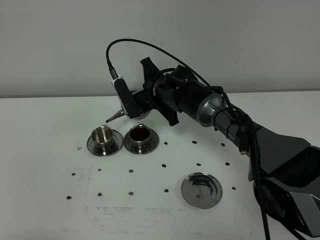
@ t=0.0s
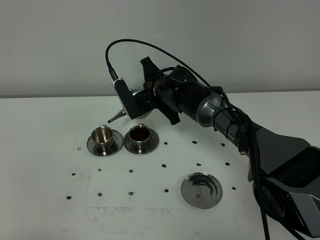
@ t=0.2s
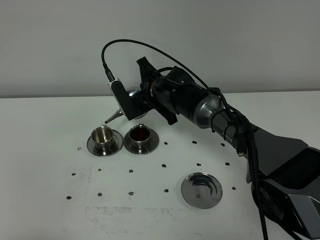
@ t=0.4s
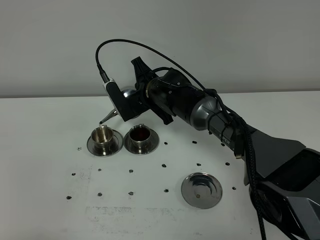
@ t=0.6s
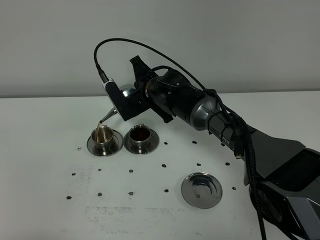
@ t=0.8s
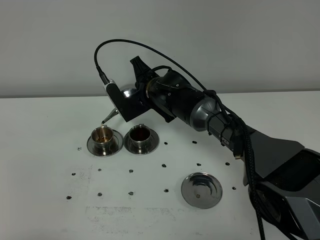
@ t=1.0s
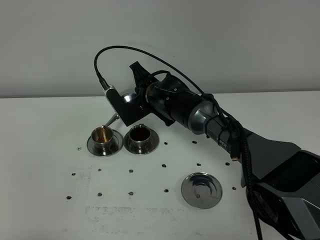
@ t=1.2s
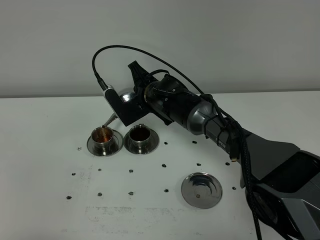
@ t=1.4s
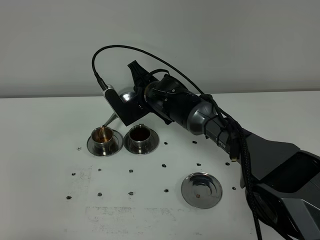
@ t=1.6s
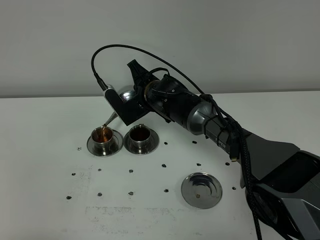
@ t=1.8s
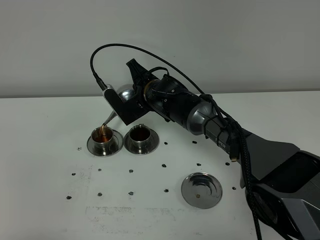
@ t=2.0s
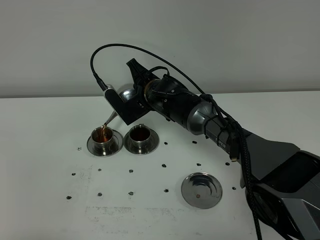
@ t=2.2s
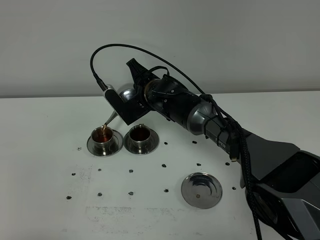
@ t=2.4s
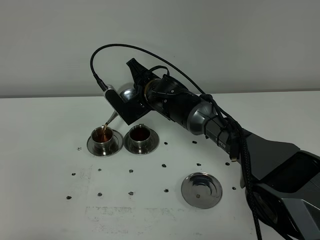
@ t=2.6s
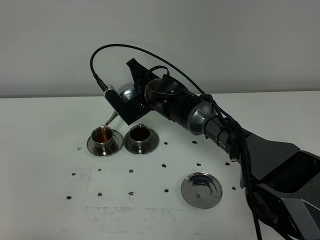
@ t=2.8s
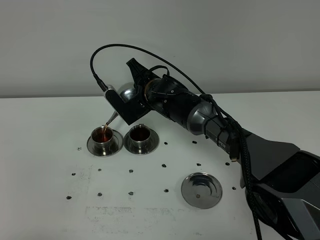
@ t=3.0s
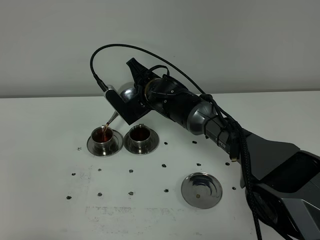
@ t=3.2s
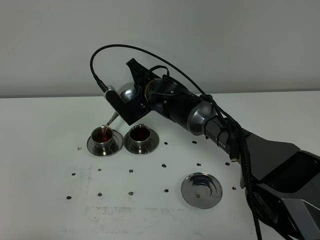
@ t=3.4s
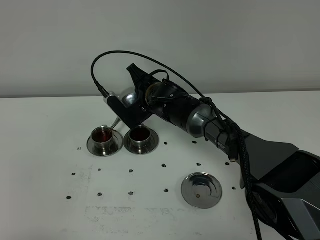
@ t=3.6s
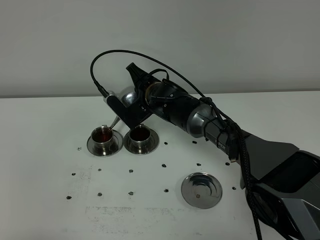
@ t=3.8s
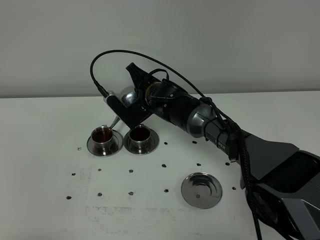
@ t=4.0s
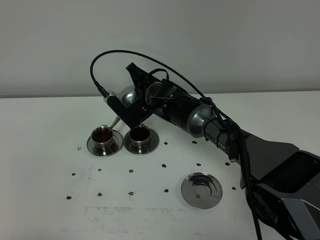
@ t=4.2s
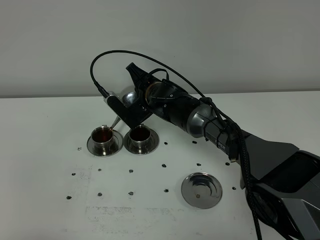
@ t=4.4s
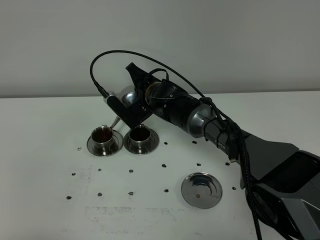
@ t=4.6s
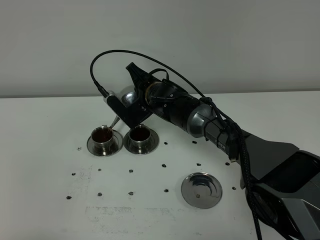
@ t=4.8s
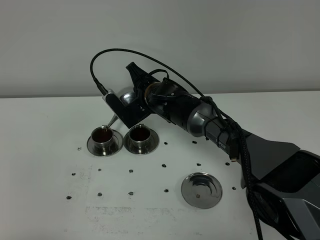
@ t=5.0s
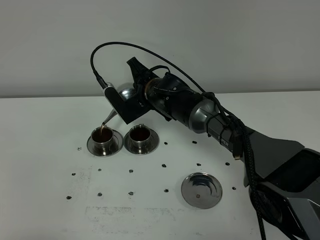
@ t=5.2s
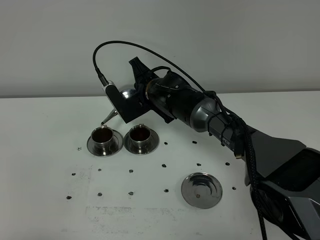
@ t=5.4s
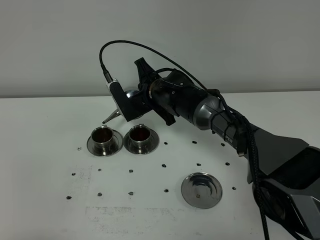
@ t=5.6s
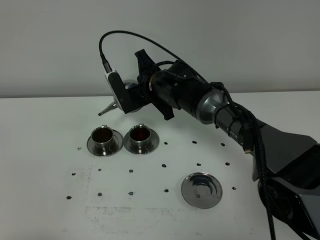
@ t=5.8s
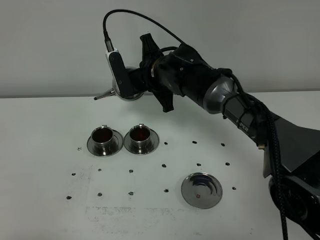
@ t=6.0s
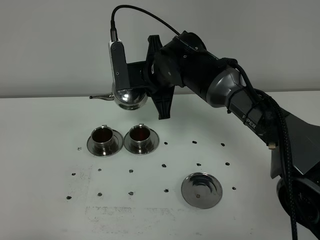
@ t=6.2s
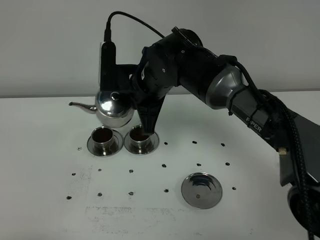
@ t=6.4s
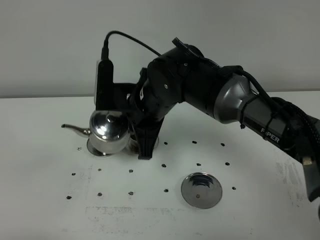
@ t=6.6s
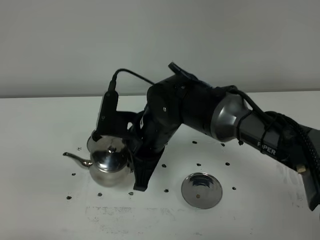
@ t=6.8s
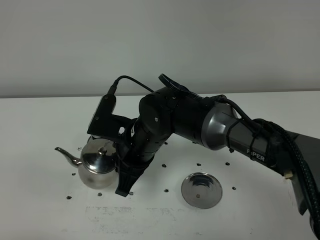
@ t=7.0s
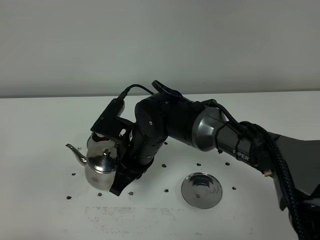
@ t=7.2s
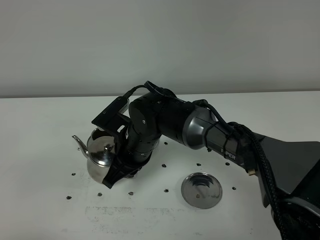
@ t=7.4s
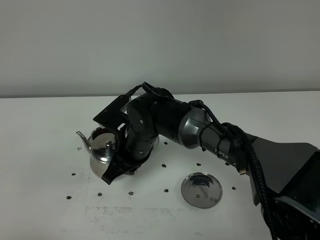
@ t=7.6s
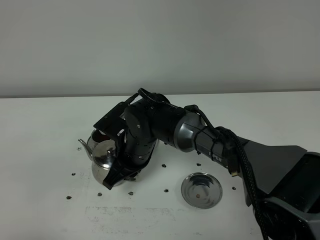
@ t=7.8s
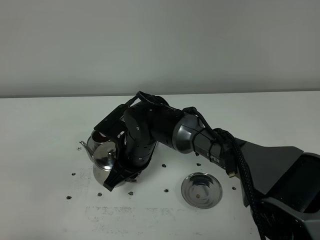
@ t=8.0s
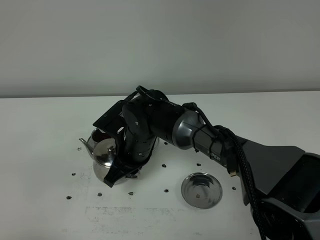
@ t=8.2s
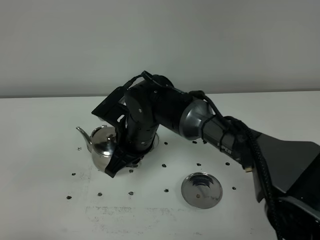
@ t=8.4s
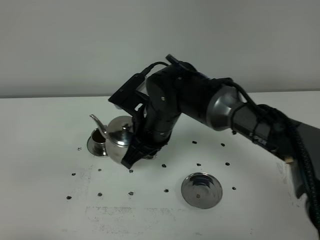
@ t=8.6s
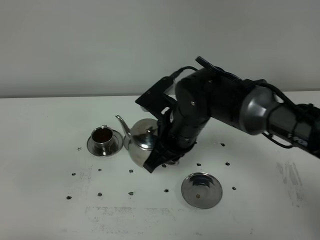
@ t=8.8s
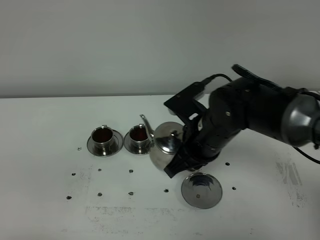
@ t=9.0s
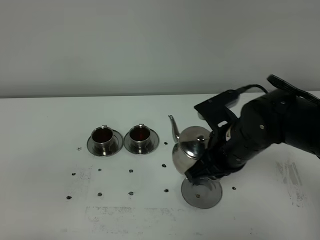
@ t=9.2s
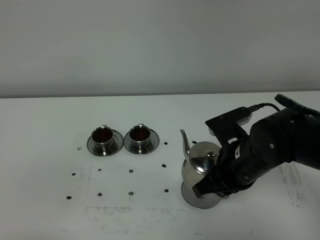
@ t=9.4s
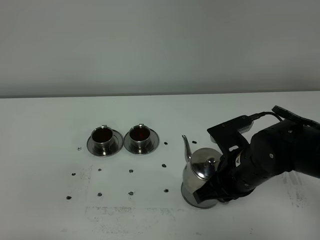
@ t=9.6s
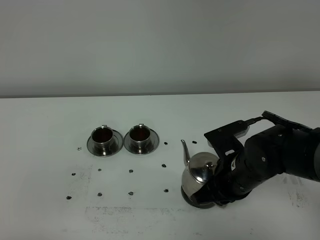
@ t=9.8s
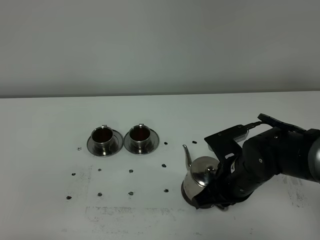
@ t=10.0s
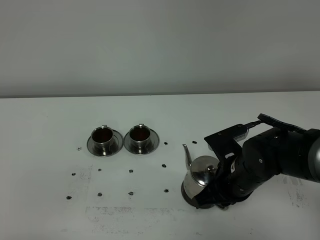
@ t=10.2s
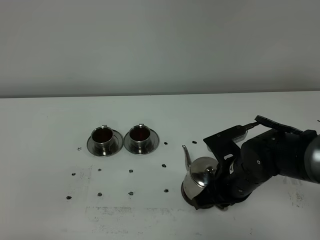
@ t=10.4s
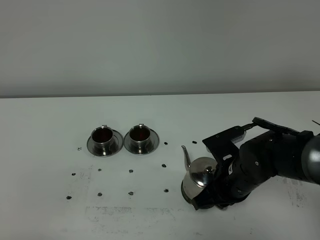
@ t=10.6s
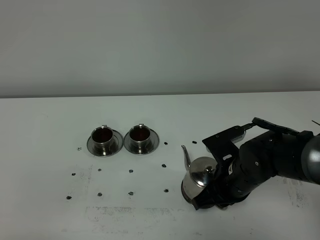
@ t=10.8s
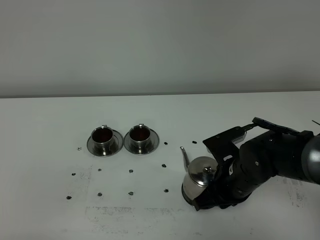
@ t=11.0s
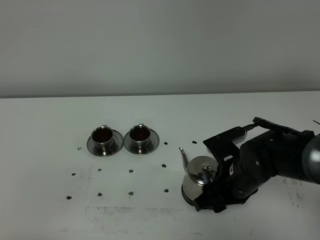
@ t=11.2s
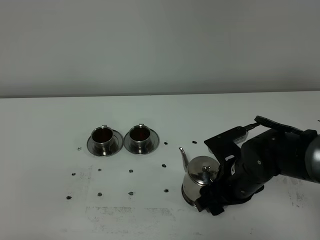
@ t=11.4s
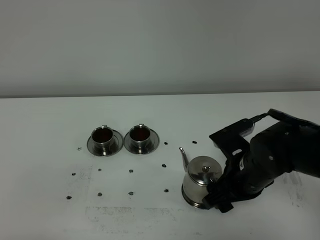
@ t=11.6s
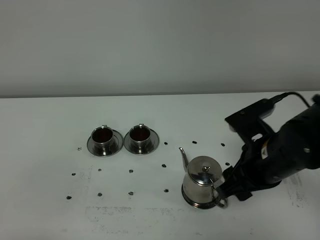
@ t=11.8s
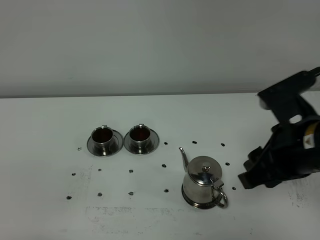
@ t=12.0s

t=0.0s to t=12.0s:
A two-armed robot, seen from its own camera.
Task of the whole recording: grasp the stainless steel teapot and pour the tea into the two stainless steel teacups one by one, put the stainless steel teapot back in its original place.
Step, t=0.0s to t=5.6s: Pour tea into the teacup with the right gripper.
t=0.0s to t=3.0s: The grippers move only a little.
t=3.0s to t=4.4s: The two grippers keep their place.
t=4.4s to t=6.0s: The right gripper moves upward, approximately 10 cm.
t=6.0s to t=7.6s: The right gripper heads backward and downward, covering about 15 cm.
t=7.6s to t=9.0s: The right gripper is displaced to the right and upward by roughly 15 cm.
t=9.0s to t=10.4s: The right gripper is displaced downward by approximately 10 cm.
t=10.4s to t=12.0s: The right gripper moves upward and backward, some 20 cm, and opens up.

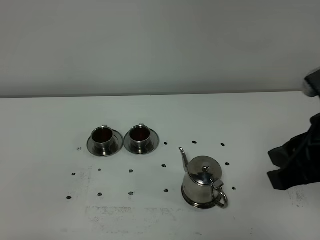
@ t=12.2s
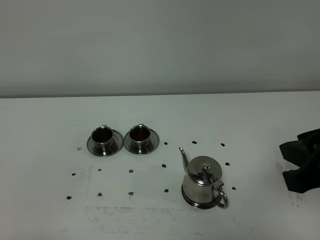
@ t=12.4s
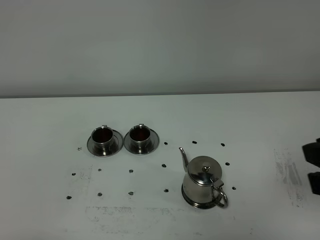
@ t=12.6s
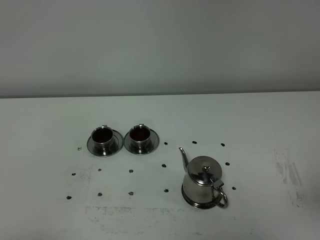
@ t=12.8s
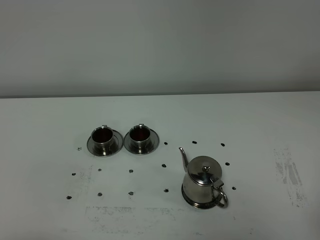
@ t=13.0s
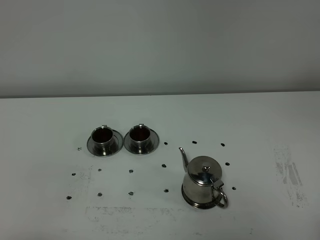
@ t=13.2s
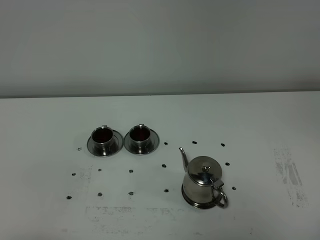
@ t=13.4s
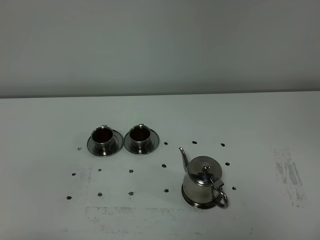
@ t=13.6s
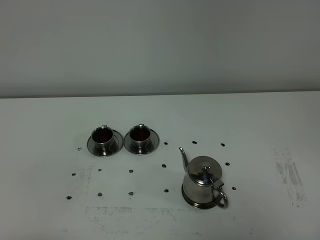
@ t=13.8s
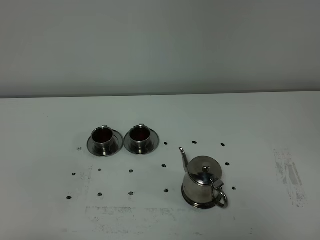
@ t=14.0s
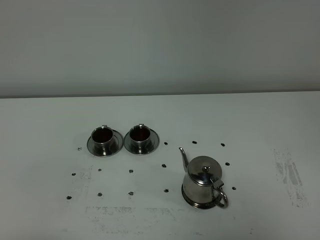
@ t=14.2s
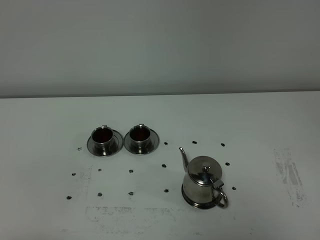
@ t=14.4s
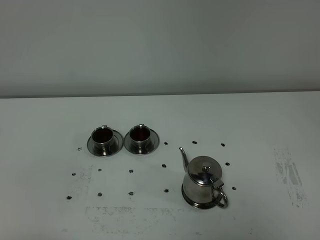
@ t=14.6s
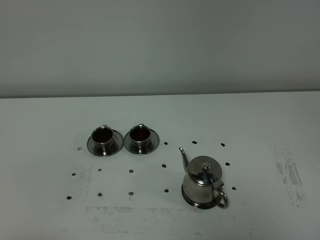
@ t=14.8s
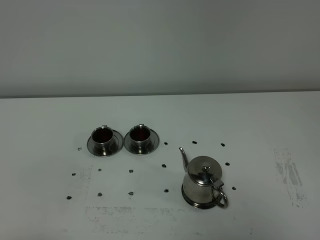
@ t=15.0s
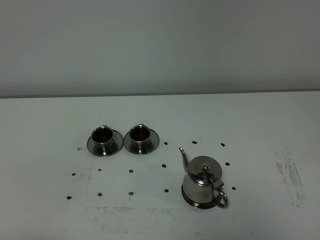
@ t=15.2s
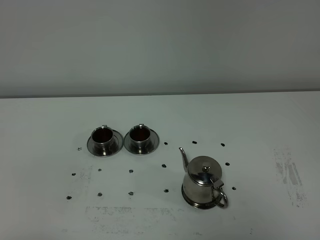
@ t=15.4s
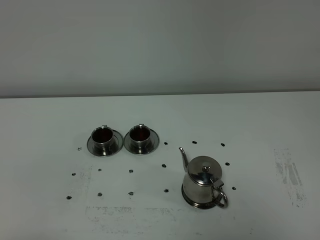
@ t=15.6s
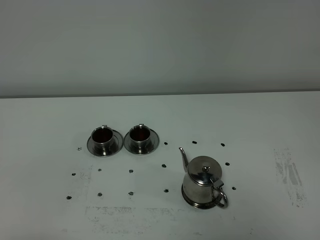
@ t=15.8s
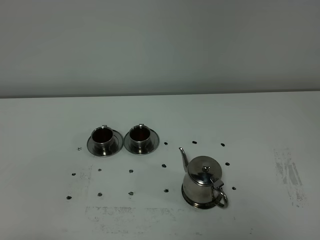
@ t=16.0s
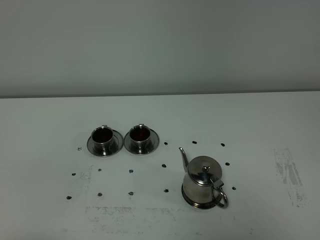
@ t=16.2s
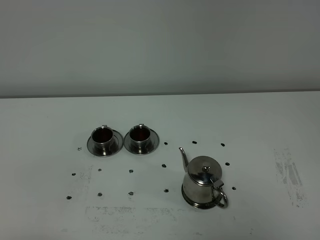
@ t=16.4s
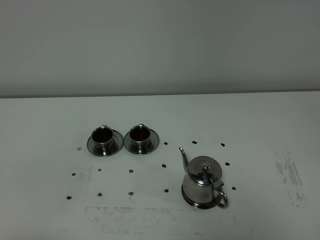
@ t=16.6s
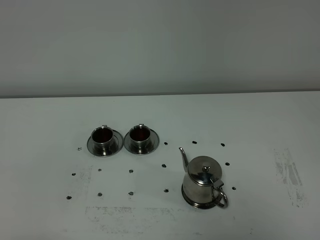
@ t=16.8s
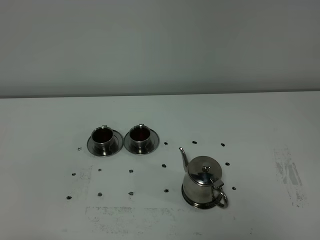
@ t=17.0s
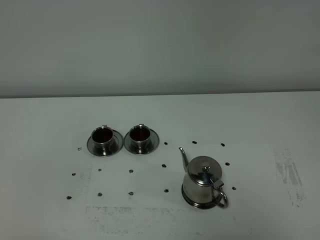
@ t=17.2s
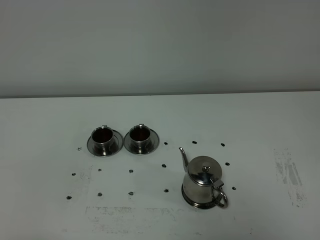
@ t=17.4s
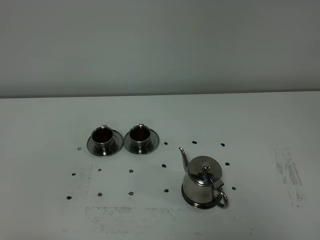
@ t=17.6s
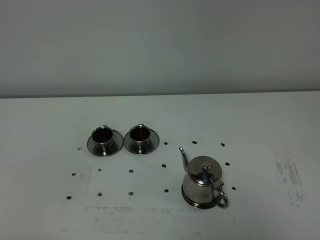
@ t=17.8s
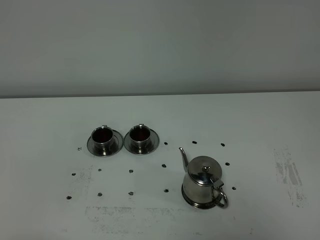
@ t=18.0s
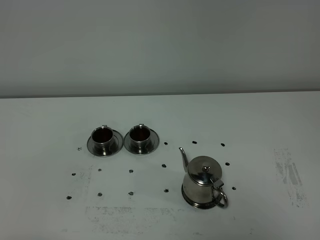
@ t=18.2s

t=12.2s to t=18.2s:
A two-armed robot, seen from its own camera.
Task of the whole recording: grasp the stainless steel teapot and pour the tea into the two stainless steel teacups one by one, put the stainless steel teapot back in its original place.
t=12.2s to t=13.8s: The right gripper is displaced backward, to the right and downward by approximately 20 cm, and closes up.
t=15.2s to t=16.6s: The two grippers keep their place.
